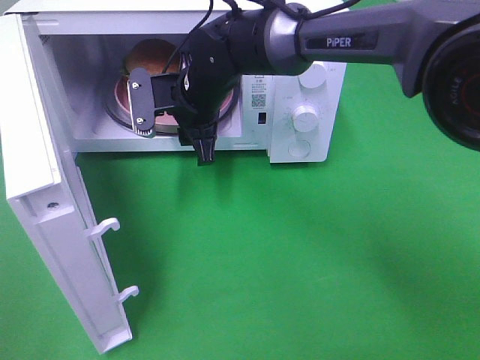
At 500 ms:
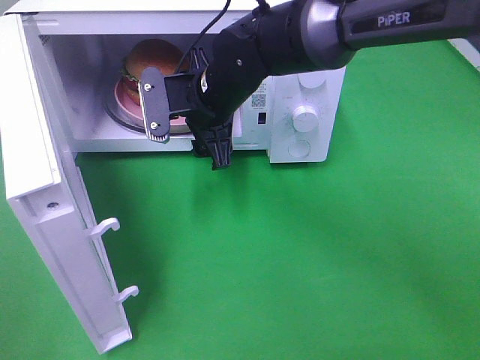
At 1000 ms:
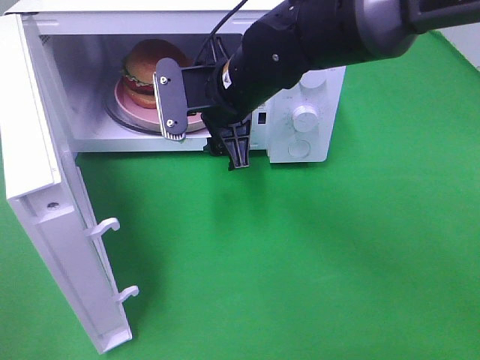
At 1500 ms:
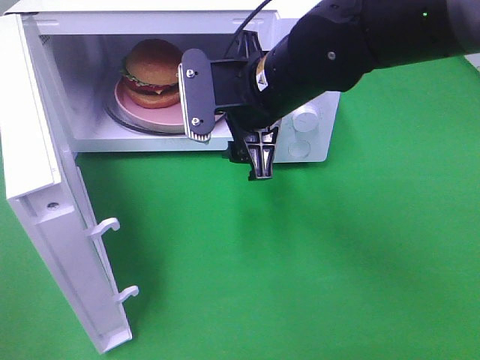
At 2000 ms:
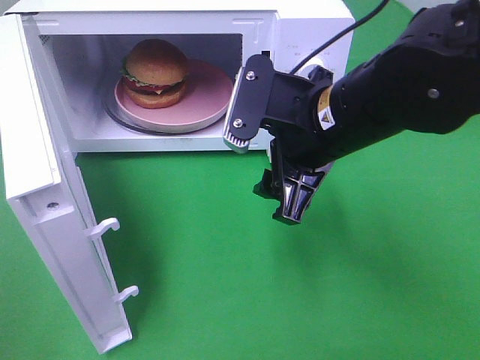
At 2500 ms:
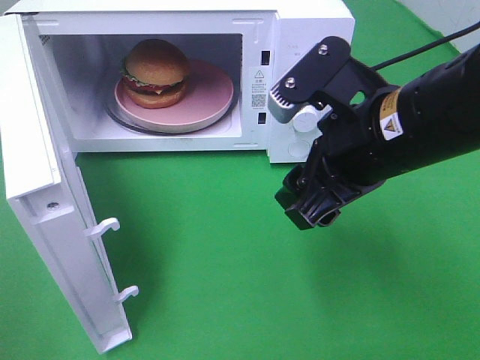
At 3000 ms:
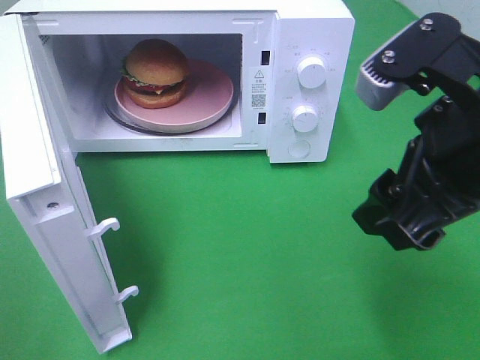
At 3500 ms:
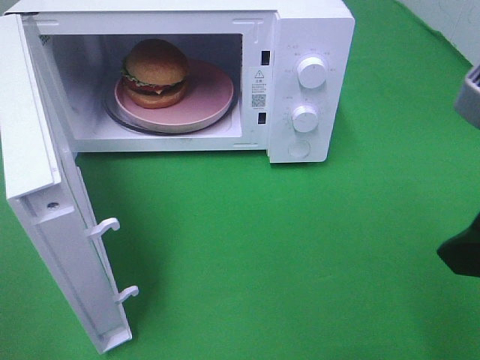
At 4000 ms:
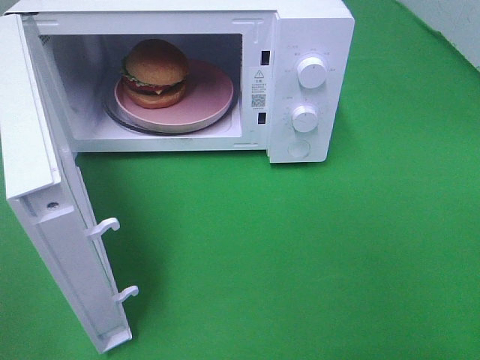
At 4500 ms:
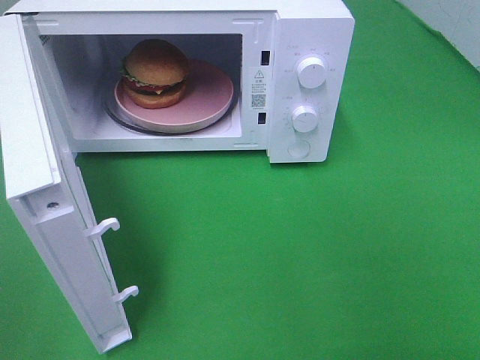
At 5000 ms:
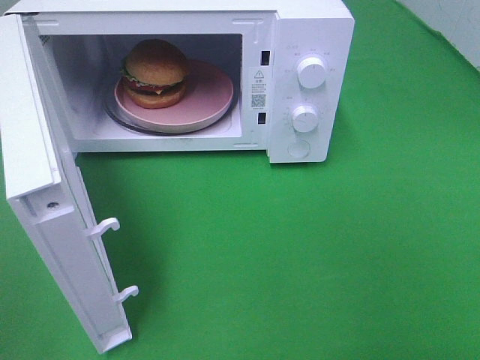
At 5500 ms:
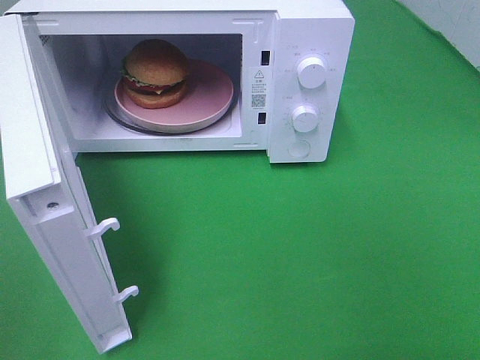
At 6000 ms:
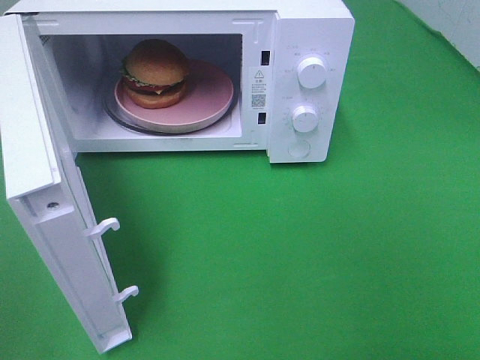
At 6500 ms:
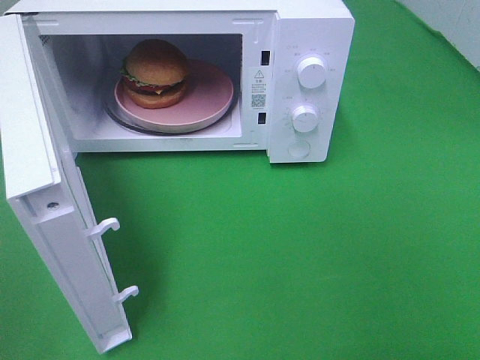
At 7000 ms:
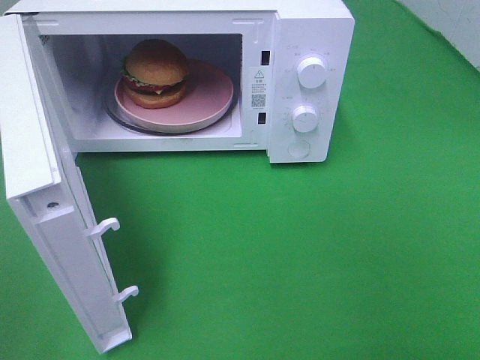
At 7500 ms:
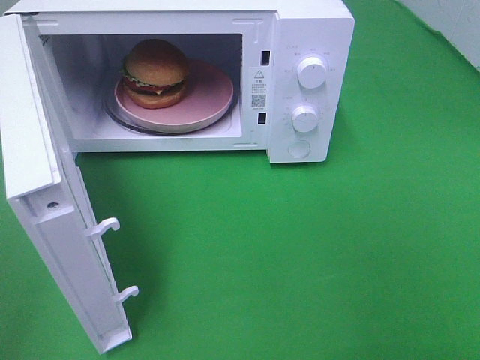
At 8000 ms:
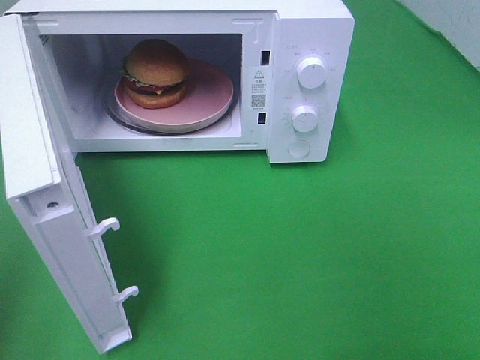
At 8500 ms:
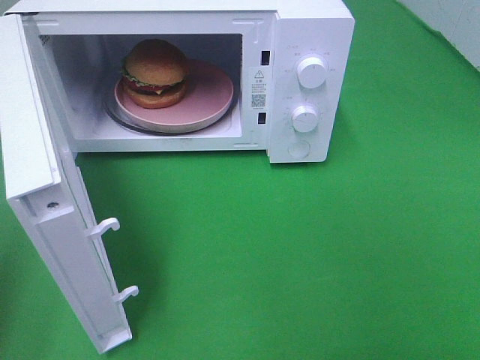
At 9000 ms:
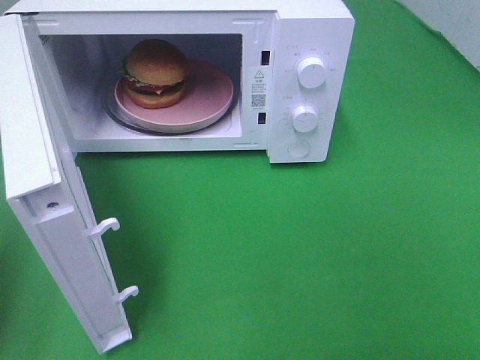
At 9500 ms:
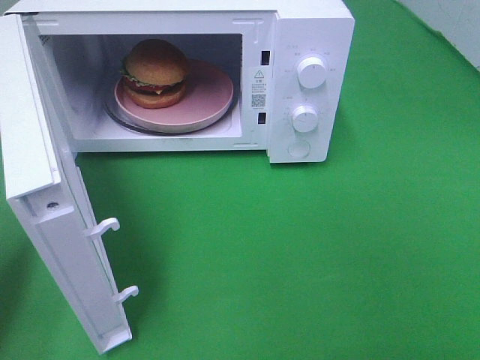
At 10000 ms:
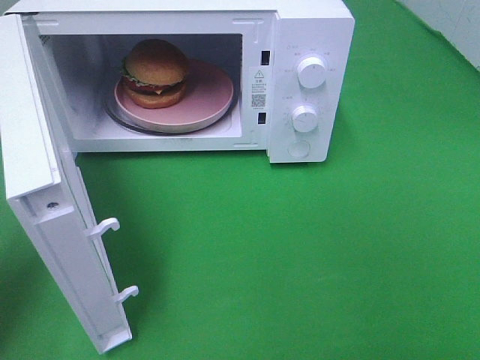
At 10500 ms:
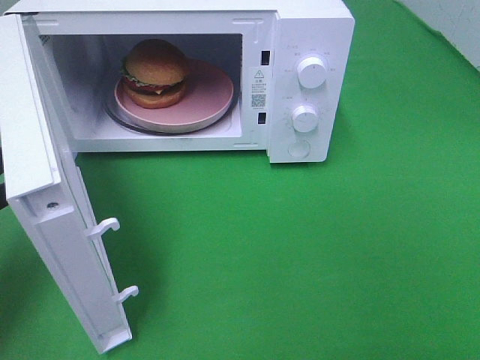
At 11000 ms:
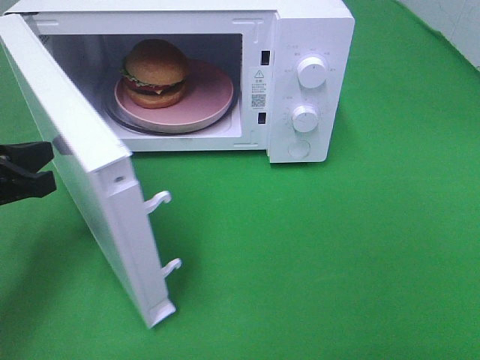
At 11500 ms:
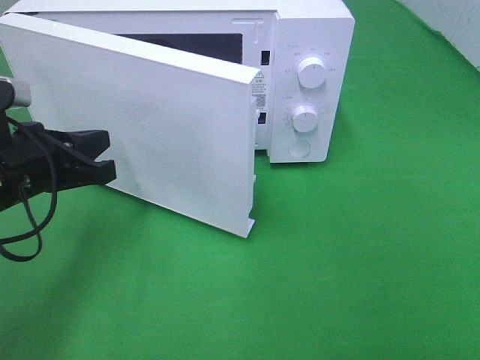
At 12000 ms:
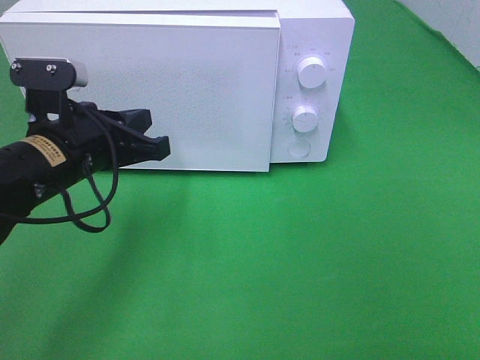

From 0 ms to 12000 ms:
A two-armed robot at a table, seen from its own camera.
Task of the whole recording: Heat the burger.
From 0 ms to 2000 ms: The right gripper goes about 20 cm backward and to the right.
From 2000 ms to 4000 ms: The right gripper goes some 25 cm to the right and backward.
From 8000 ms to 10000 ms: The left gripper is displaced forward and downward by about 15 cm.
From 10000 ms to 12000 ms: The left gripper travels to the right and forward by some 15 cm.

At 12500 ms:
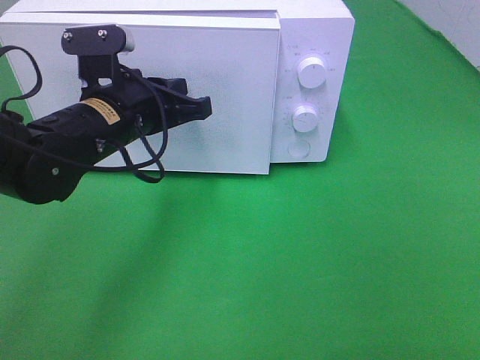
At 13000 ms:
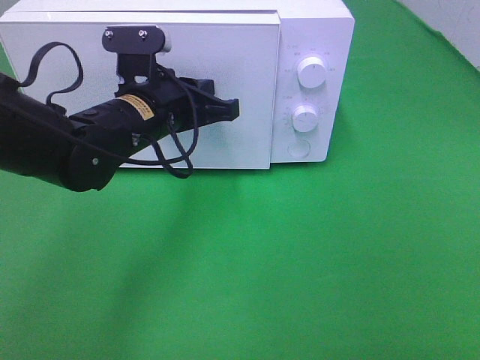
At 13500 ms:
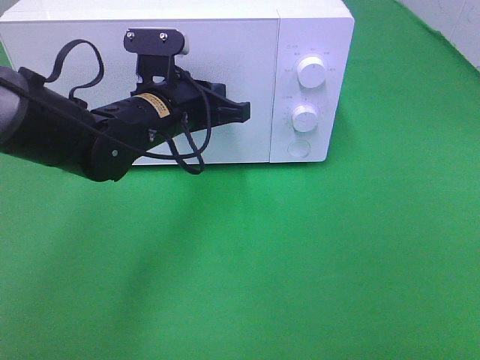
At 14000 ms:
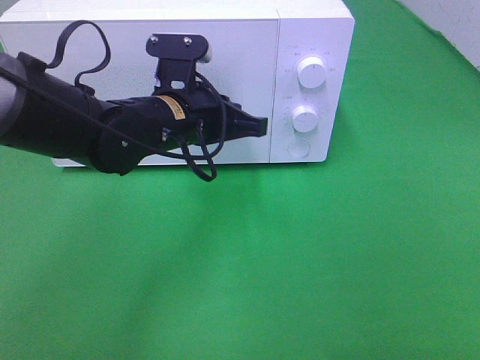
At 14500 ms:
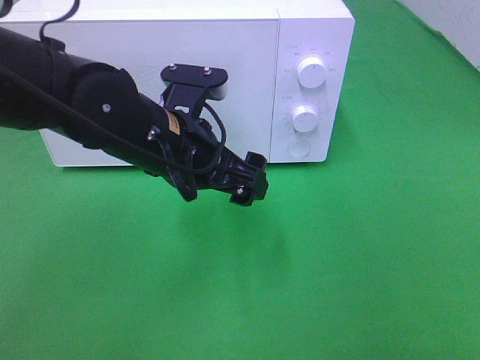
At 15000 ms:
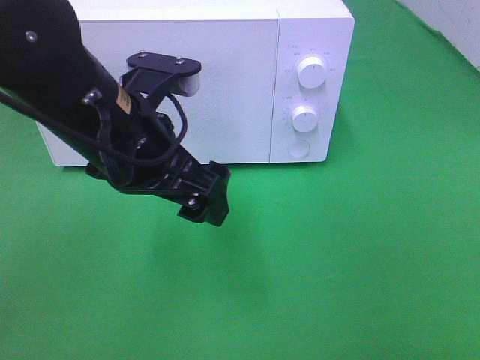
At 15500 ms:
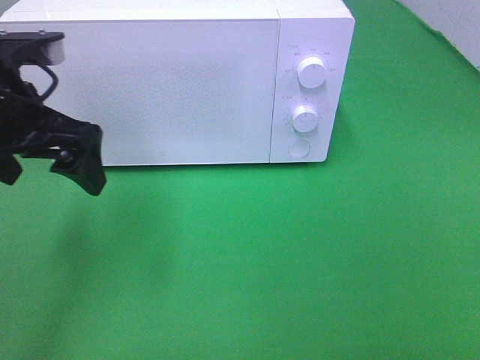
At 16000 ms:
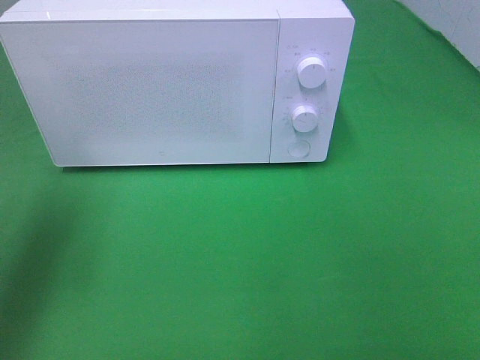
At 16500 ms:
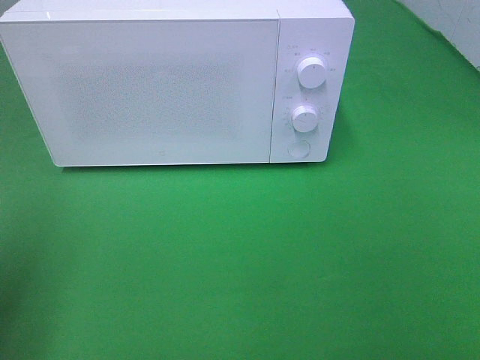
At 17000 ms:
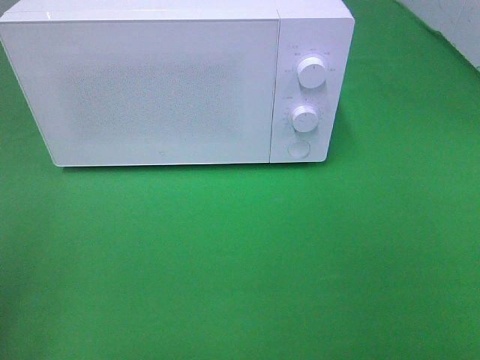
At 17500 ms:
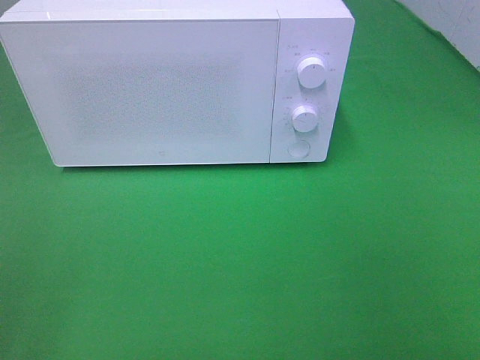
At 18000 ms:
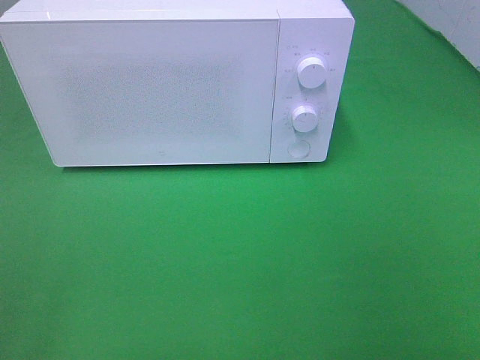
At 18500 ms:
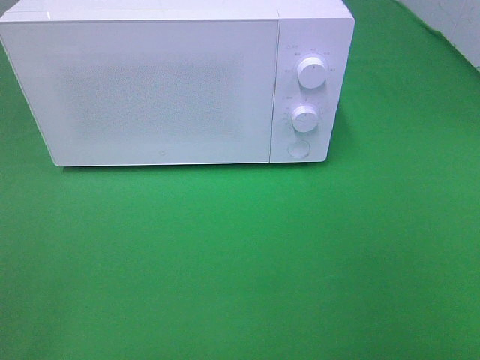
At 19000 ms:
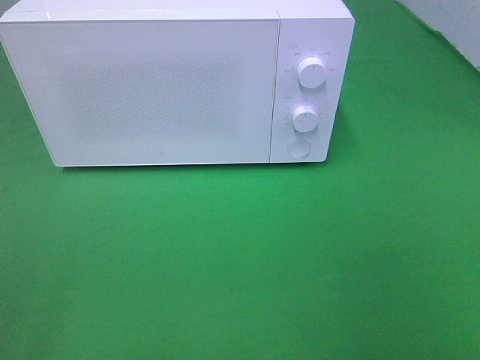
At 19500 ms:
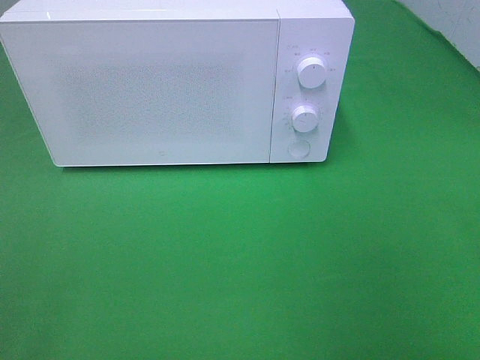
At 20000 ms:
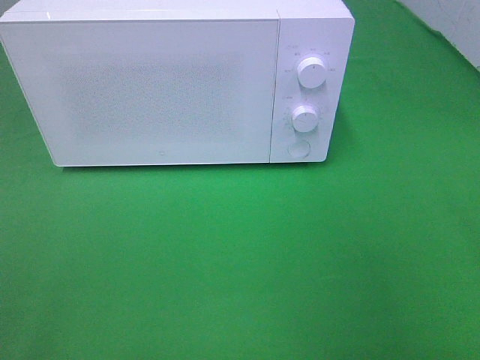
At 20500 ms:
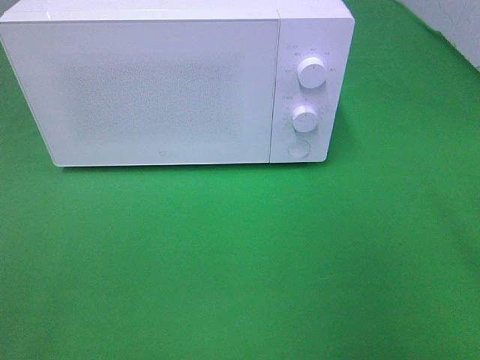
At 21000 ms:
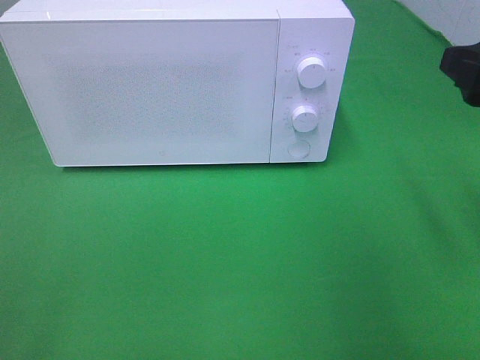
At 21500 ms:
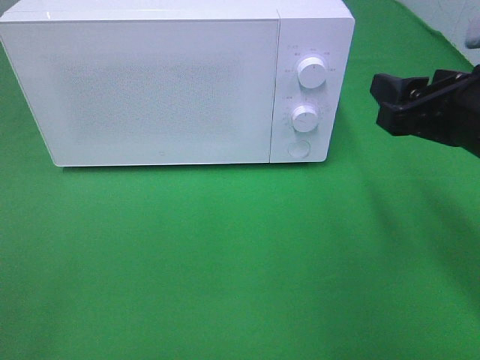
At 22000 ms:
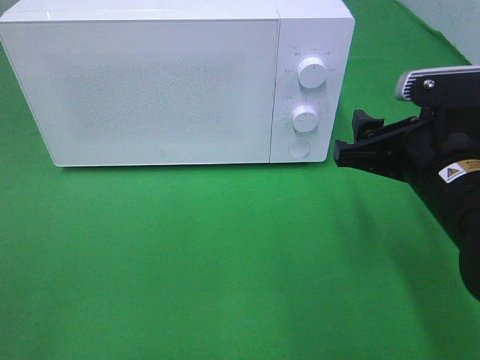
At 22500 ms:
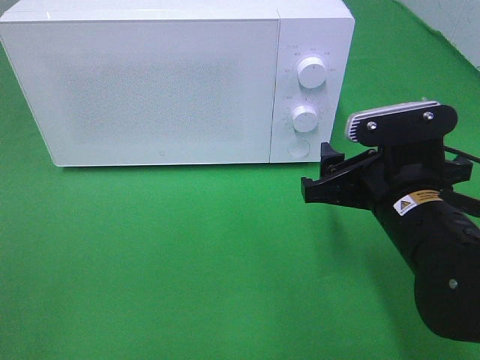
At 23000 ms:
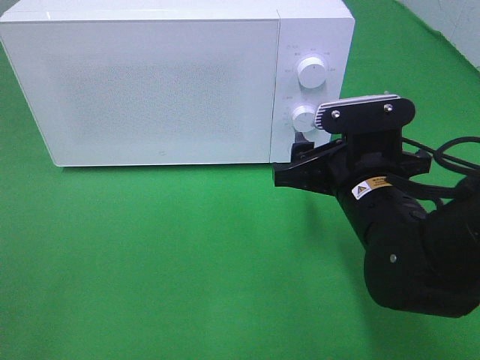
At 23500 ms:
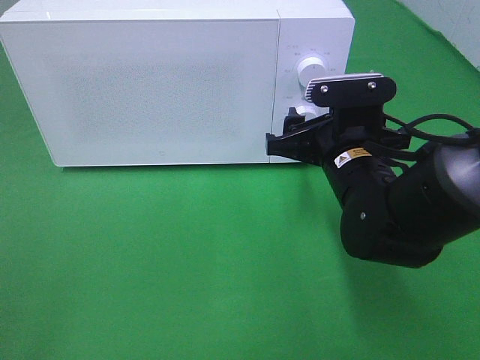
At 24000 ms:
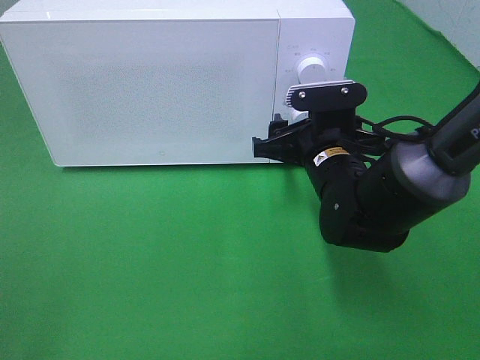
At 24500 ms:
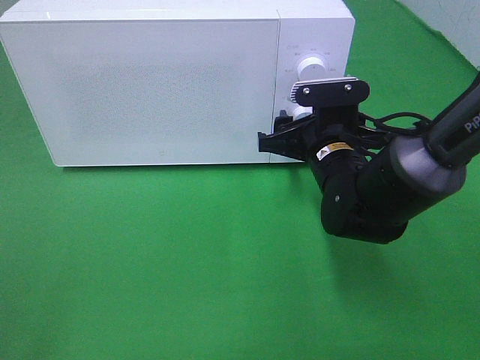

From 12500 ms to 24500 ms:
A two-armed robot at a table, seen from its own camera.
Task of the whole recording: Heat the burger.
Step, from 12500 ms to 14500 ms: Left hand: close the microwave door.
From 12500 ms to 14500 ms: The left gripper is displaced to the right by about 5 cm, and opens up.
From 14500 ms to 16500 ms: The left gripper goes approximately 30 cm to the left and backward.
From 16500 ms to 18500 ms: The left gripper moves backward, some 15 cm.
From 20500 ms to 22500 ms: The right gripper shifts approximately 20 cm downward and to the left.
From 22500 ms to 24500 ms: The right gripper heads forward, covering roughly 10 cm.

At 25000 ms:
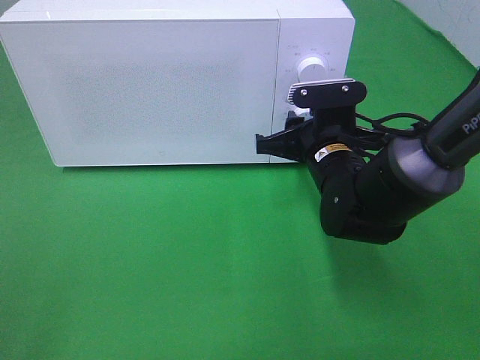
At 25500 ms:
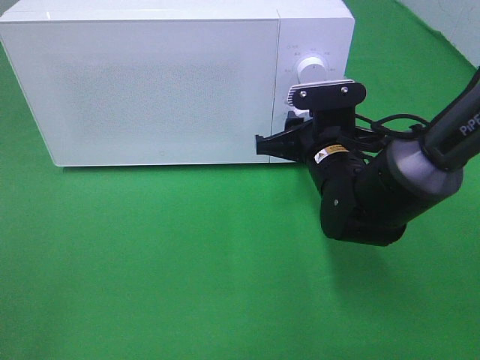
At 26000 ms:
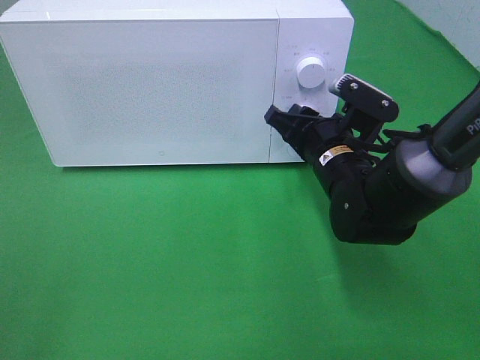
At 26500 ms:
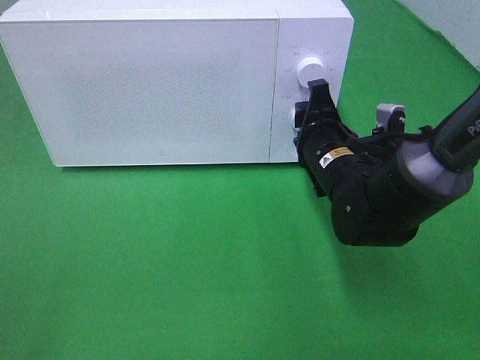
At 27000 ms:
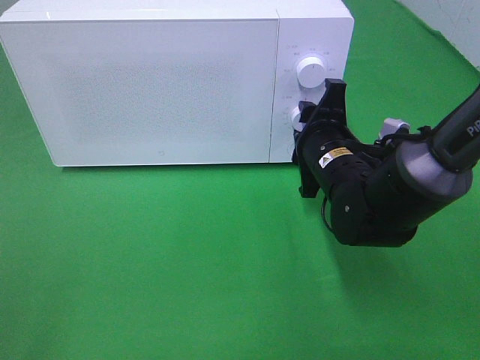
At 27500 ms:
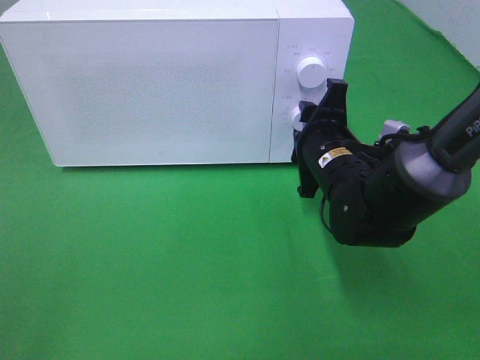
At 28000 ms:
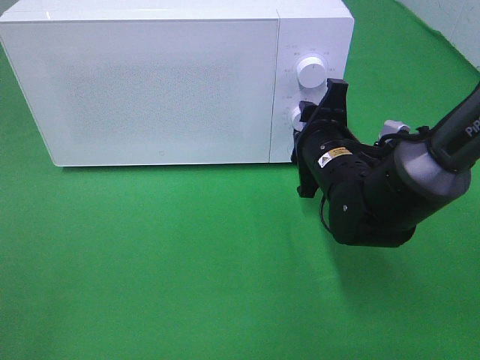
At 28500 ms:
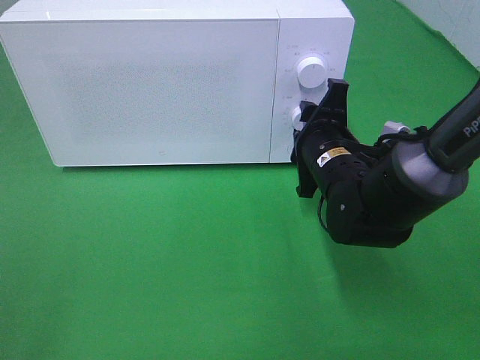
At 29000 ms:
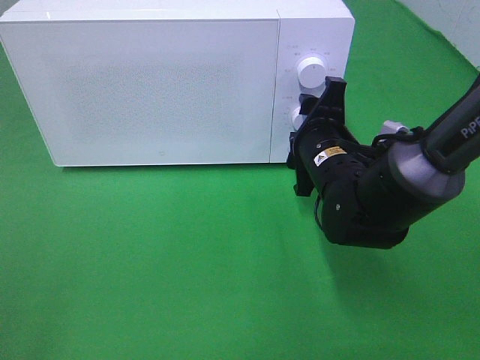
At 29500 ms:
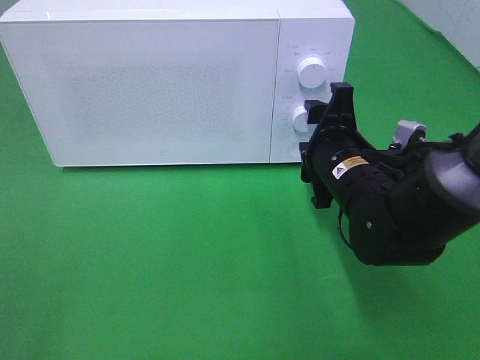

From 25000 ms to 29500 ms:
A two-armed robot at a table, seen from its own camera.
Task of the whole recording: Heat the burger.
Step, from 25000 ms to 29000 ms: Right hand: twist timer button.
From 27000 ms to 29500 ms: The grippers make only small movements.
